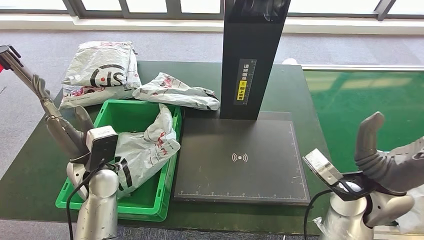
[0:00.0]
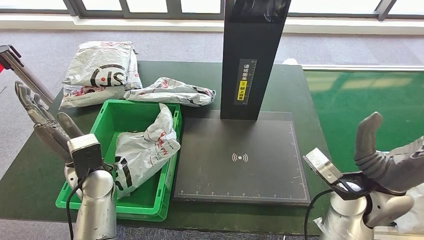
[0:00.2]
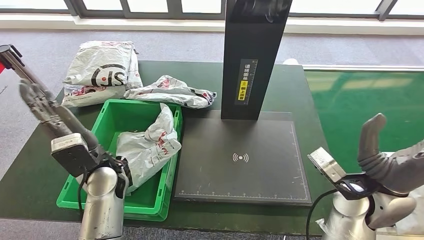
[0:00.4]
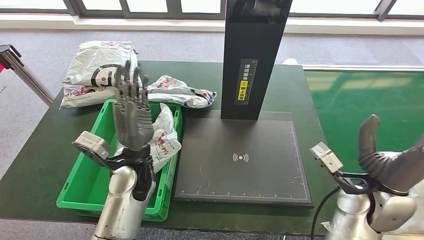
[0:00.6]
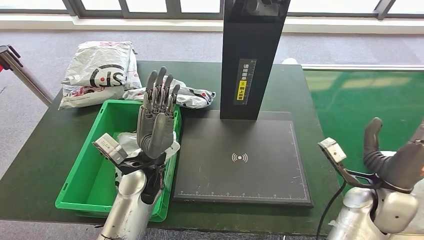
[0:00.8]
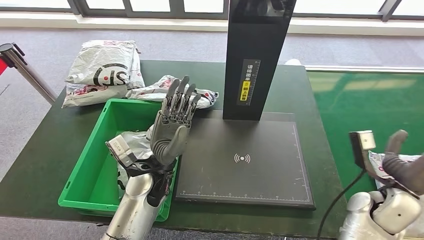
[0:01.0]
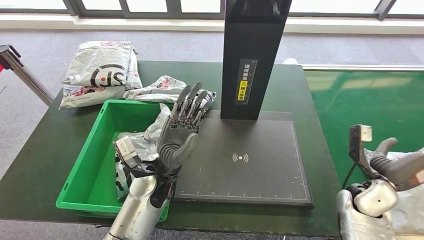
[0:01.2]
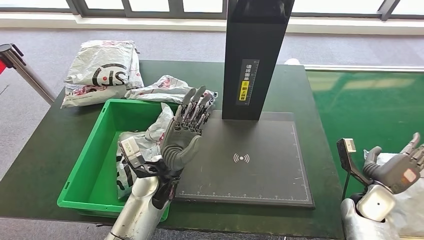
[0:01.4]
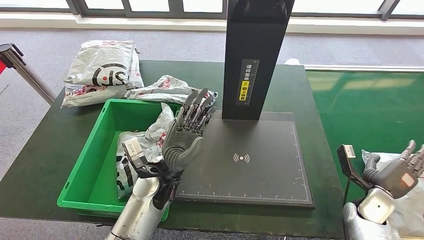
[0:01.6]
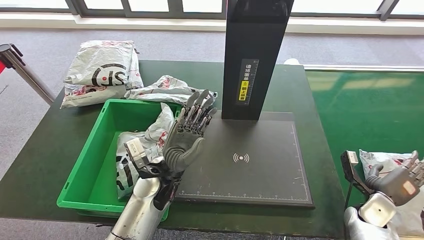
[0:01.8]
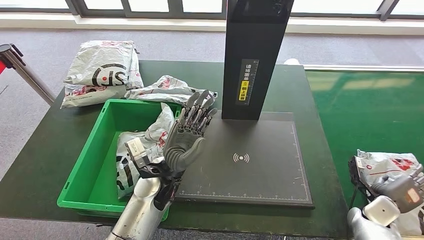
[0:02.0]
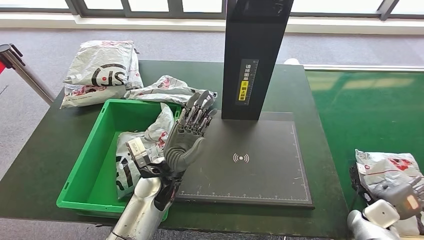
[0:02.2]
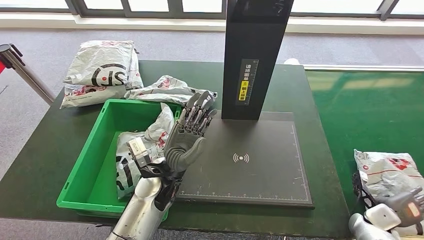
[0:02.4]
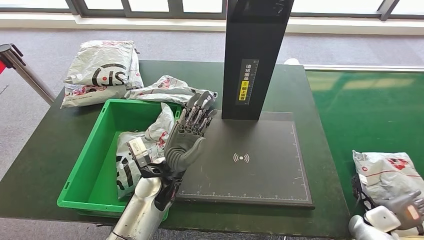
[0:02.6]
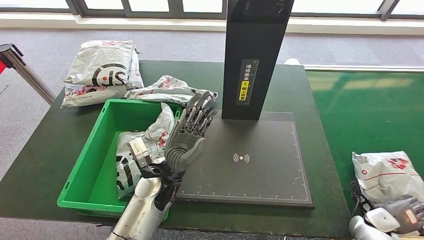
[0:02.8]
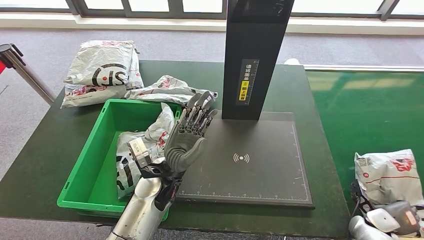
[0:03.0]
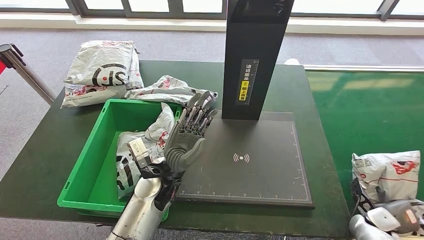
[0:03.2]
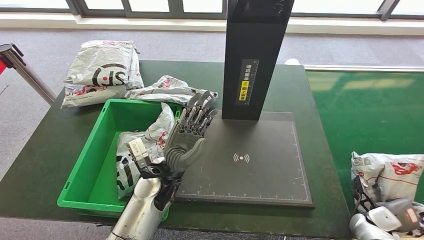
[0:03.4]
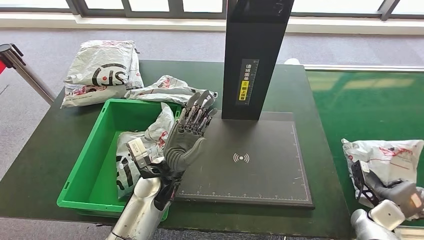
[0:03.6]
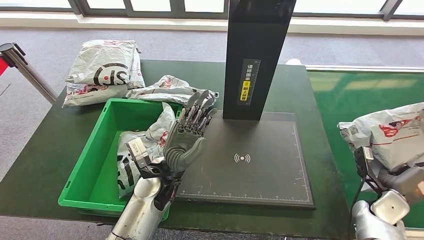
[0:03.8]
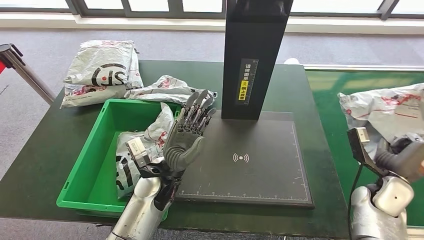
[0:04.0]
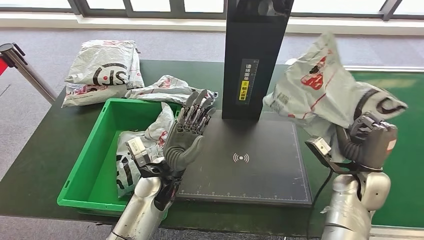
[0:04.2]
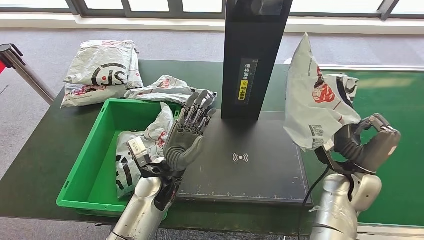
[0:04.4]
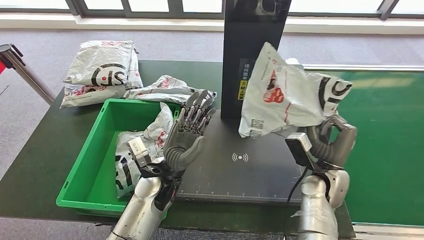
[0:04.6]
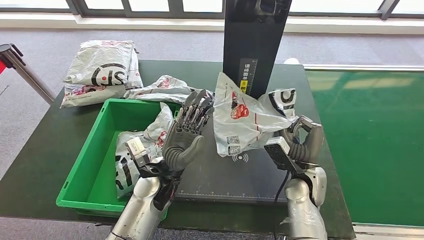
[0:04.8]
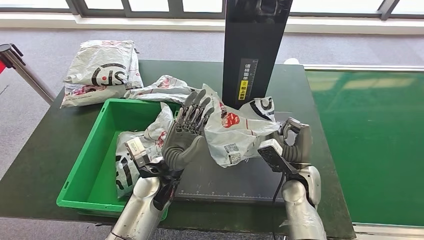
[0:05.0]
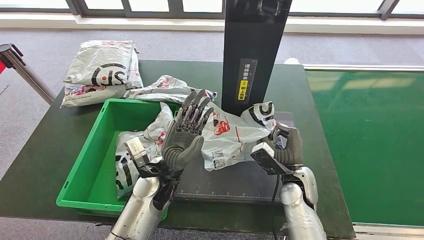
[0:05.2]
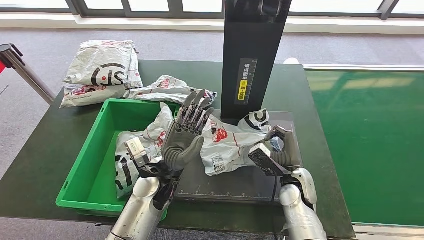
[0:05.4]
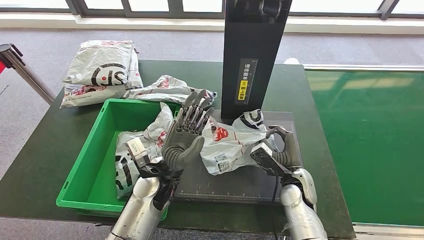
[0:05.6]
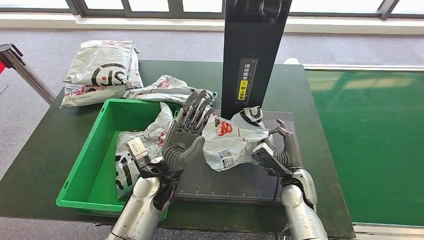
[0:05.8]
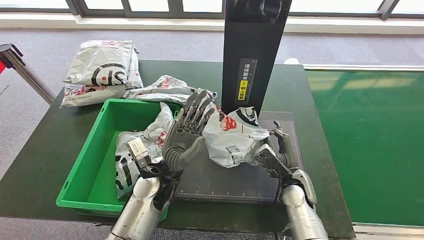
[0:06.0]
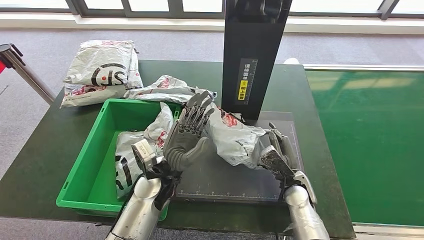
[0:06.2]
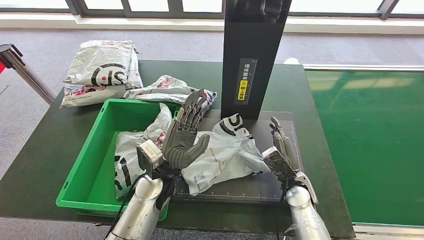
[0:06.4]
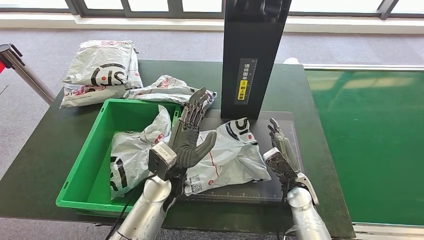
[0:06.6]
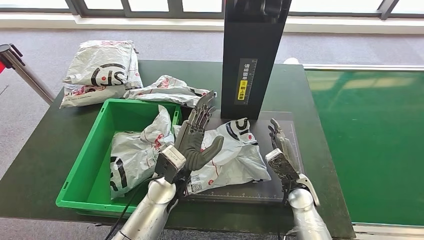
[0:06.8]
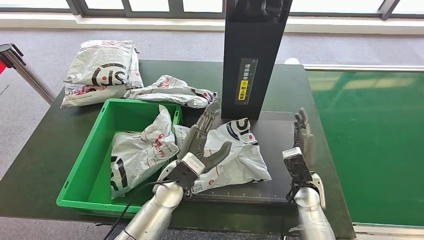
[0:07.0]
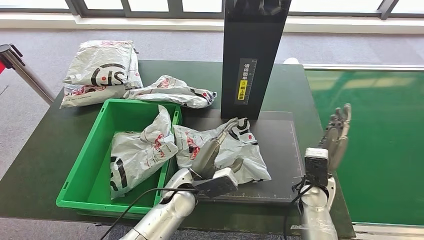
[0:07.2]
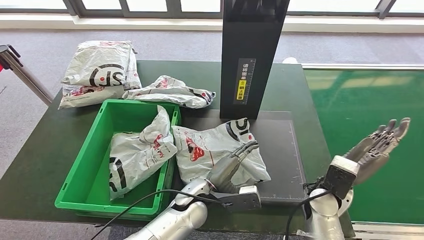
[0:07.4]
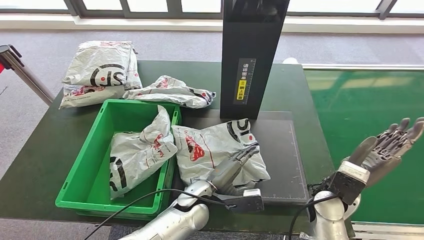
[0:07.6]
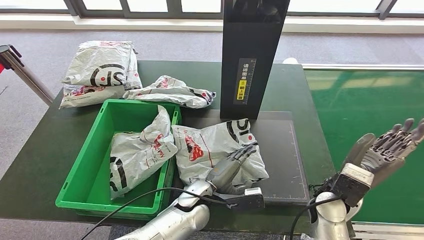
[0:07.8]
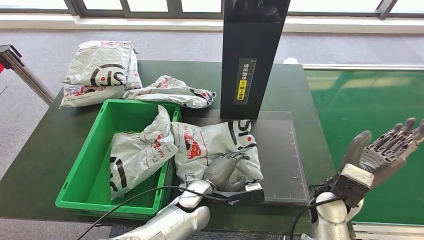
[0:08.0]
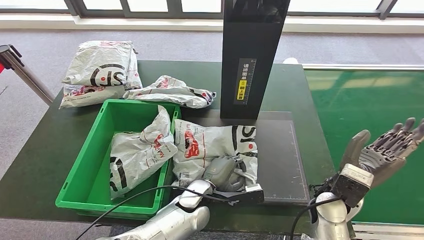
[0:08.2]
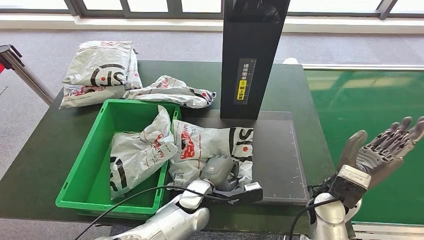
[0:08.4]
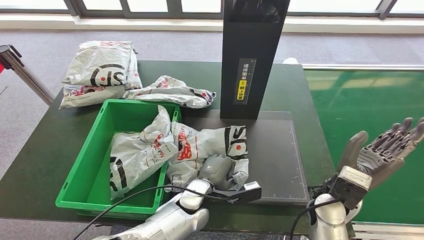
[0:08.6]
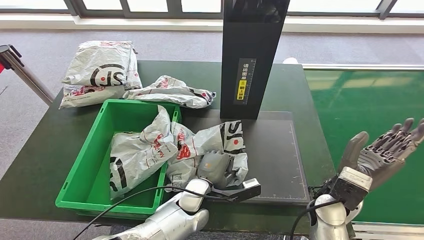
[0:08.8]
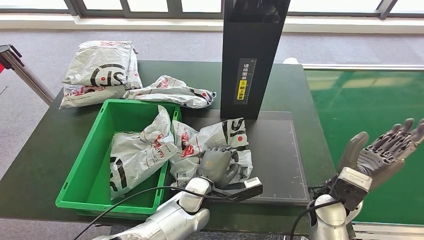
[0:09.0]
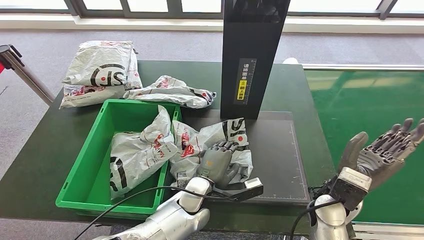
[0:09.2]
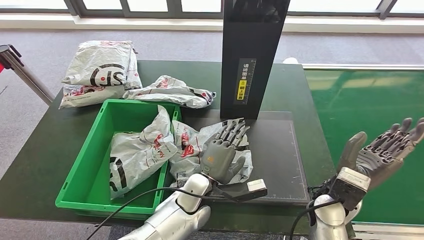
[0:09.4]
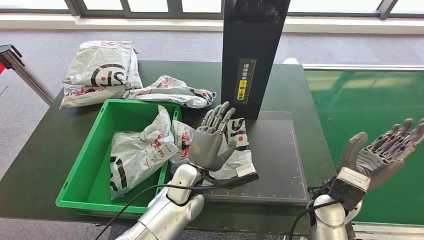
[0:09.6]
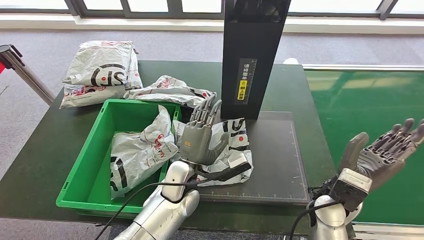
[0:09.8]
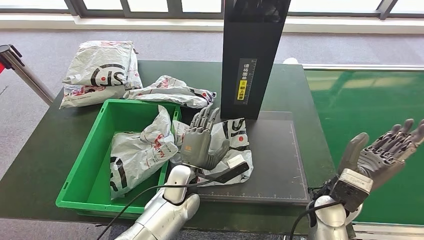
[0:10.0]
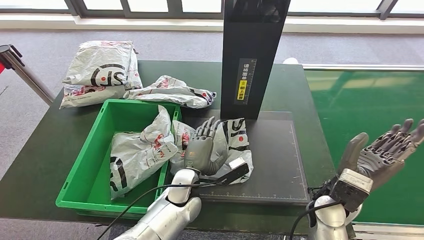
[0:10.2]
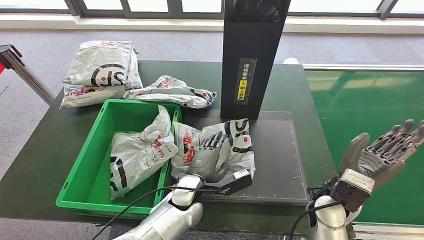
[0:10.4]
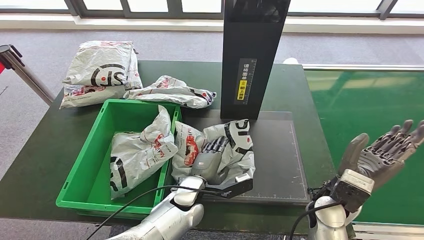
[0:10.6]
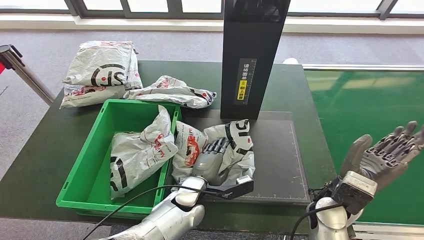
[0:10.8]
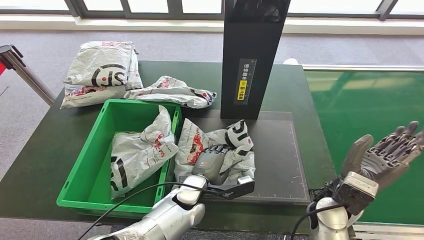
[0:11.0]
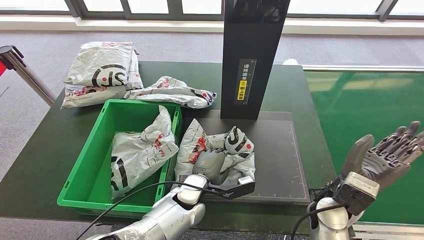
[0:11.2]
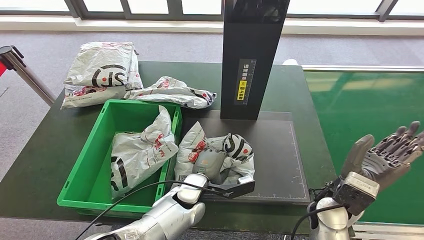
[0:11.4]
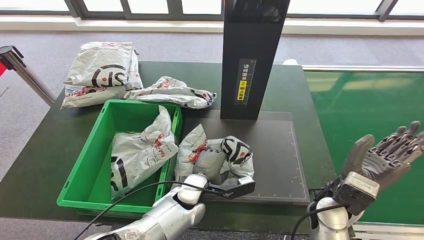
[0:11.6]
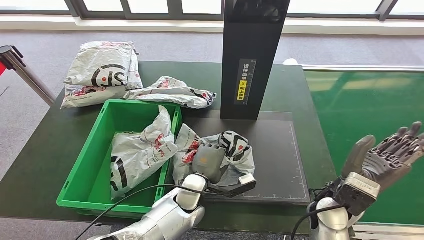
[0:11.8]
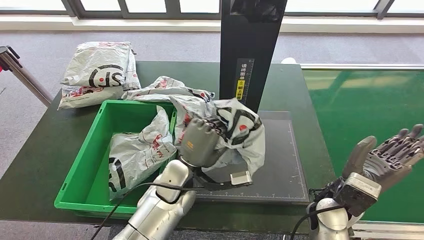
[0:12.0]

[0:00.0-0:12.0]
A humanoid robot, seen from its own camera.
Step, 0:00.4 to 0:03.8: Pick up the parcel from the conveyor belt.
Step, 0:04.0 to 0:06.4: Place the parcel onto the inbound machine.
0:01.6 to 0:03.0: The right hand shifts approximately 5 cm downward.
0:03.0 to 0:04.4: The right hand heads upward and to the left, covering about 20 cm.
0:04.4 to 0:06.0: The right hand moves to the left and downward, roughly 15 cm.

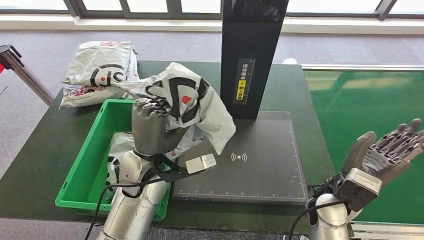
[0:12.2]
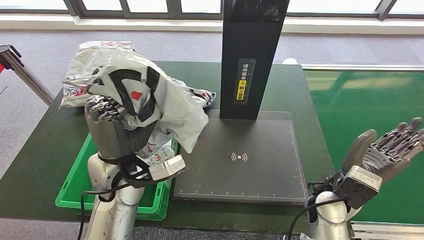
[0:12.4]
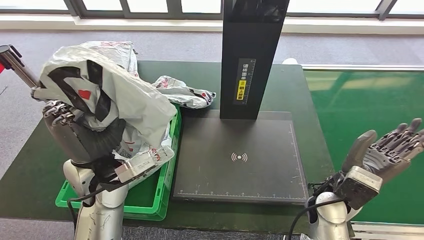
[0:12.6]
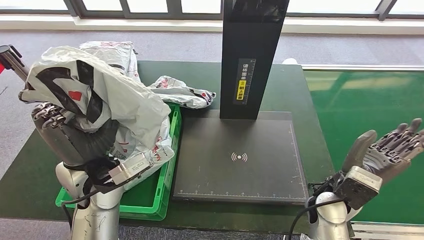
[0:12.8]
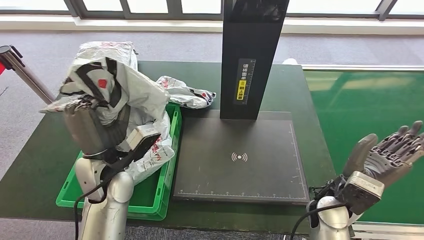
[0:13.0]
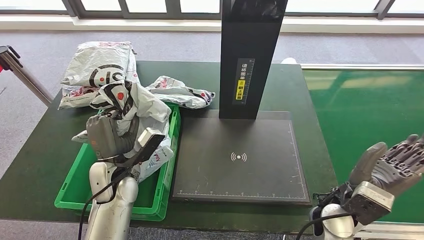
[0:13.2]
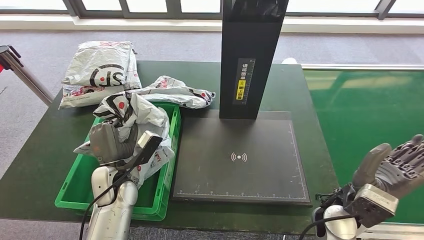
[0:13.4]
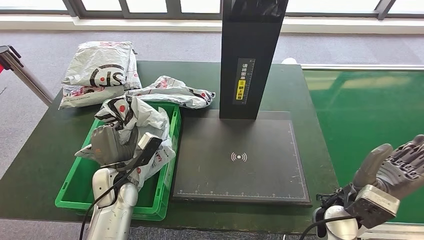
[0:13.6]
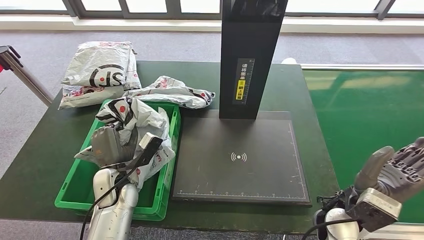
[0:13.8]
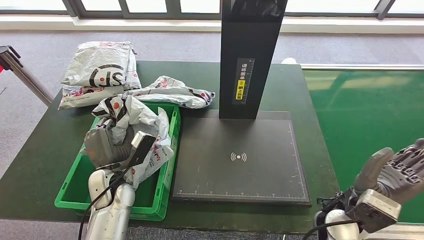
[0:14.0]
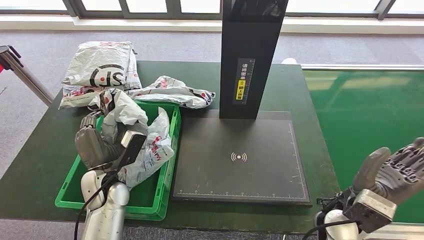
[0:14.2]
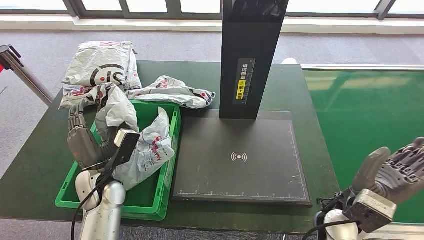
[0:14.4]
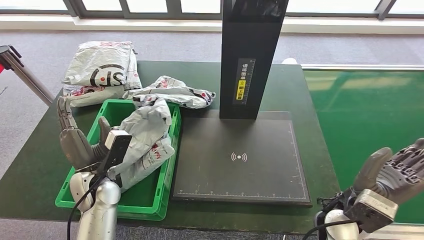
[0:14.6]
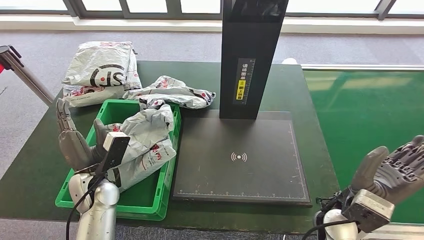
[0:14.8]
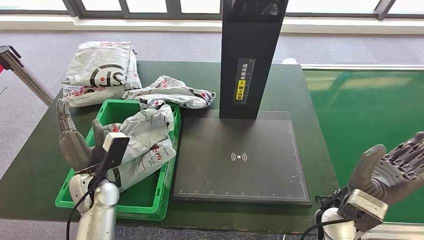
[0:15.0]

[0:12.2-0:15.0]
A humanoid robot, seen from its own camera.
Step, 0:12.4 to 0:14.8: Place the parcel into the delivery box.
0:13.6 to 0:15.0: There are only small adjustments of the hands.
